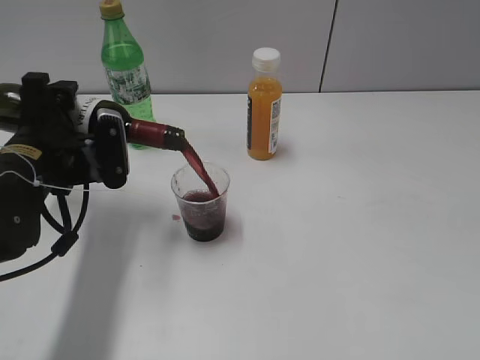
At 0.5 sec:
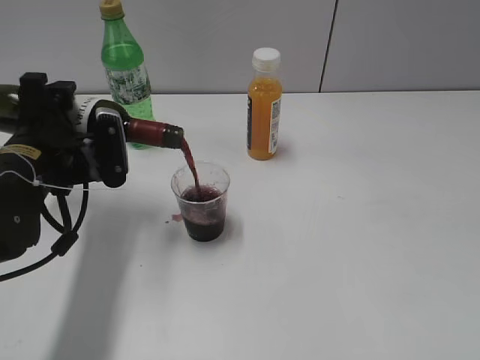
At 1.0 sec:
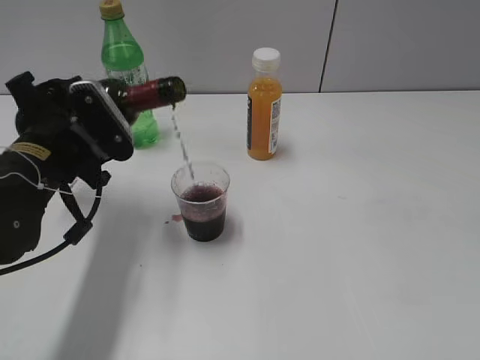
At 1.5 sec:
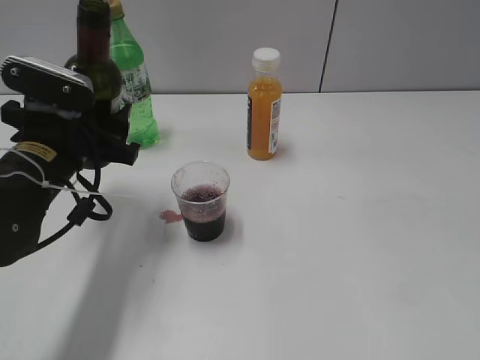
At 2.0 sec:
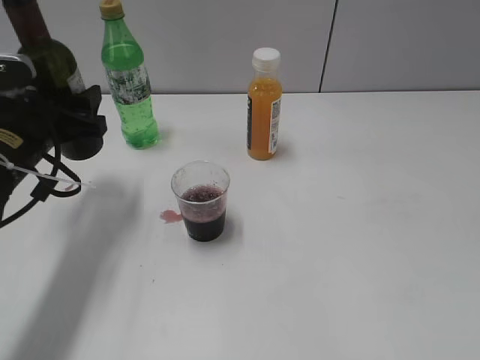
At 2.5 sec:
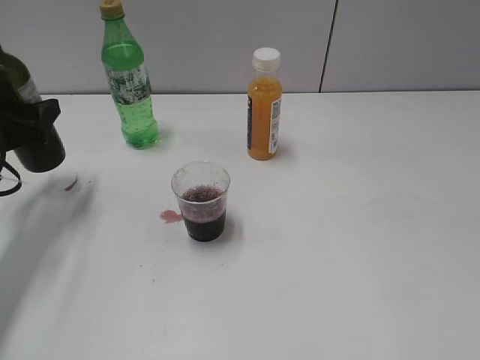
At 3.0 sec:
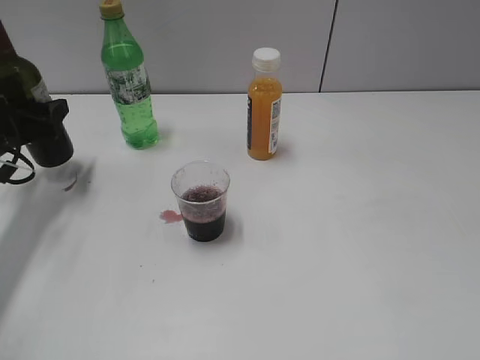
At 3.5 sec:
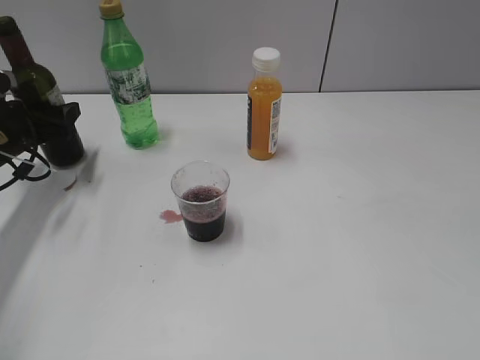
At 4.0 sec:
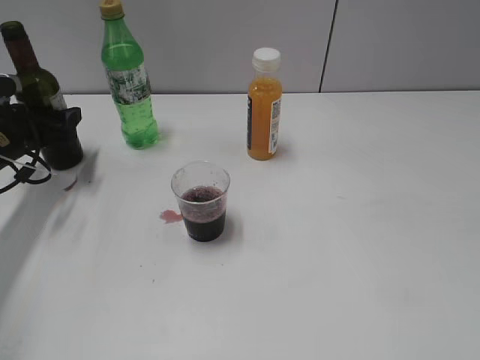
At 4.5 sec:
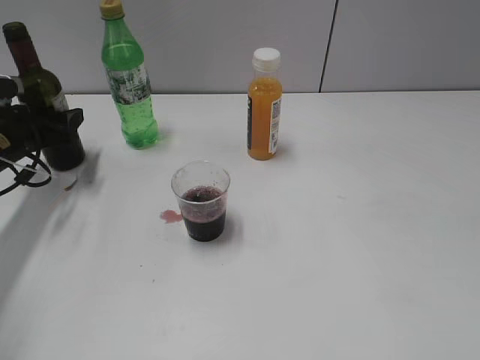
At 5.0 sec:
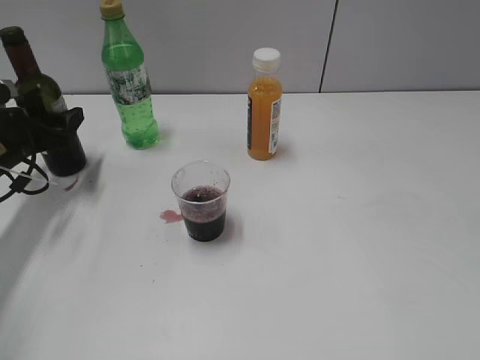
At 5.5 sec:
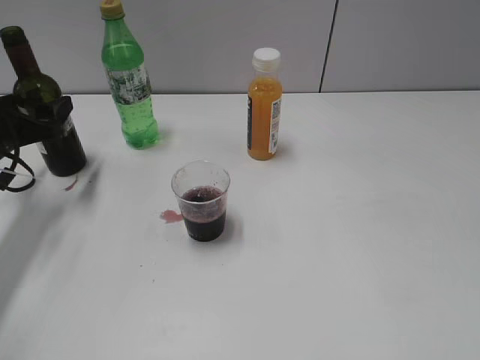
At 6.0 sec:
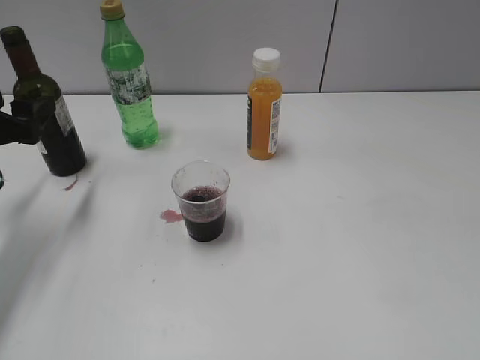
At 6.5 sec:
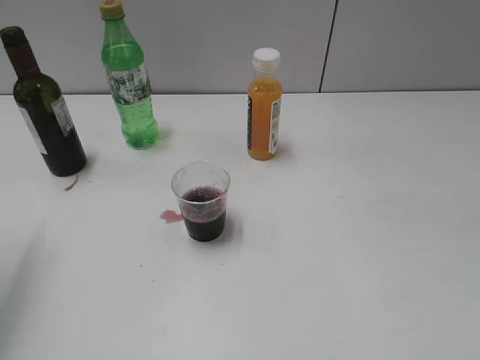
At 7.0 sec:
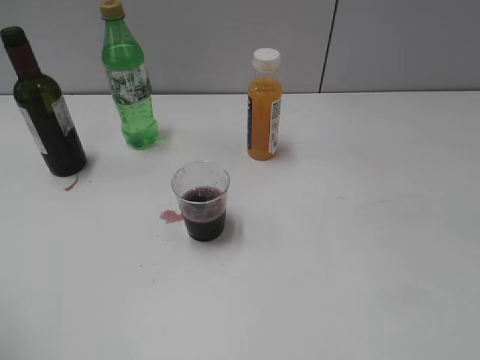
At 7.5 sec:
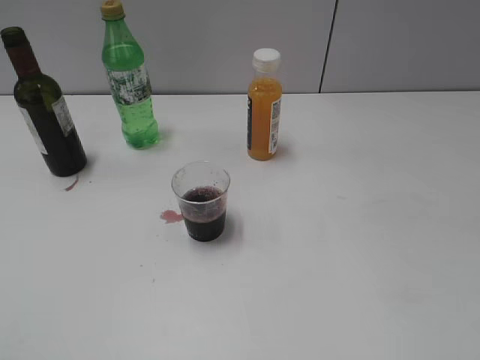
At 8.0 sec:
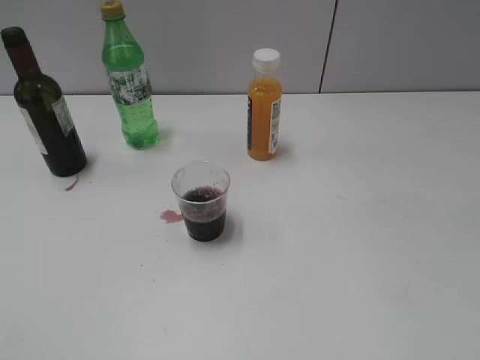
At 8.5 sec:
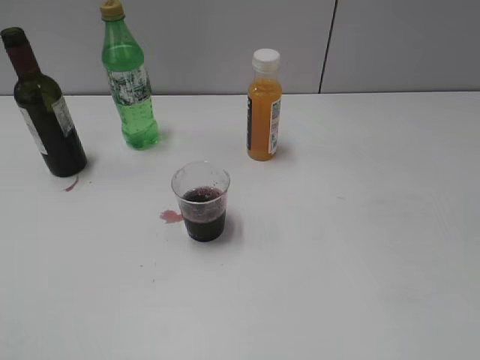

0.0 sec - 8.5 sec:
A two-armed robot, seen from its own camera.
Step, 1.5 sec - 5.5 sec: Place the red wine bottle on the table with left gripper.
2.0 sec - 4.0 sec: The left gripper heads forward, to the left and downward, covering approximately 15 cm.
4.0 sec - 6.5 sec: The left gripper is displaced backward and upward by roughly 25 cm.
6.5 sec - 8.5 sec: The left gripper heads backward, covering roughly 25 cm.

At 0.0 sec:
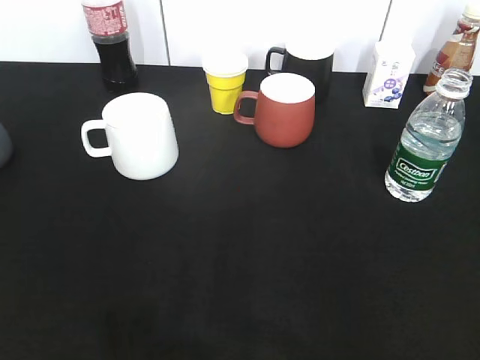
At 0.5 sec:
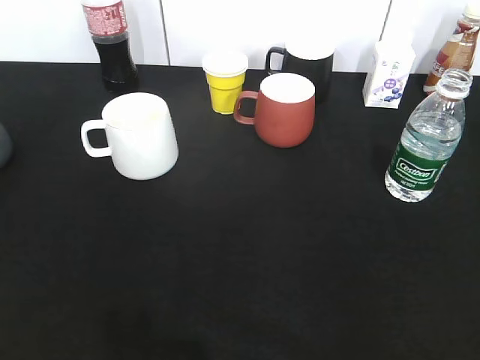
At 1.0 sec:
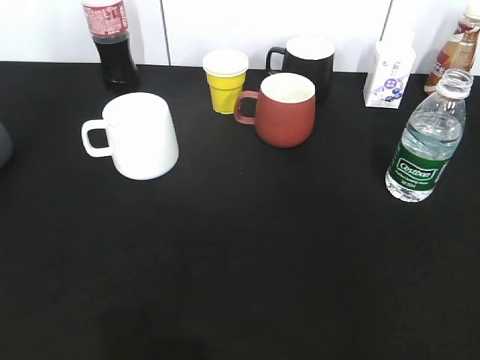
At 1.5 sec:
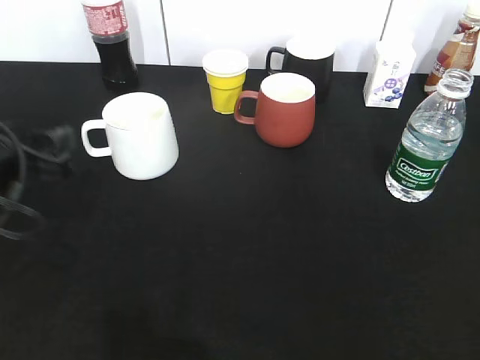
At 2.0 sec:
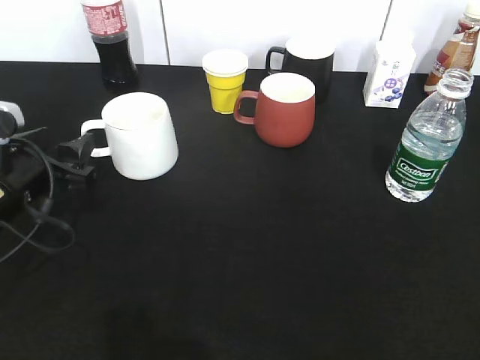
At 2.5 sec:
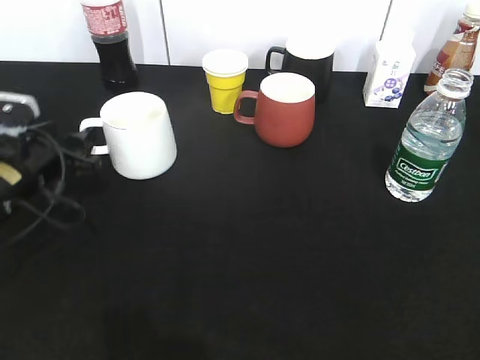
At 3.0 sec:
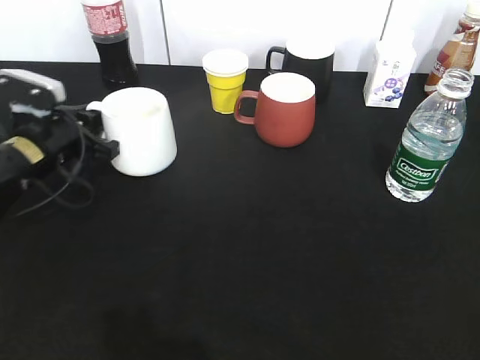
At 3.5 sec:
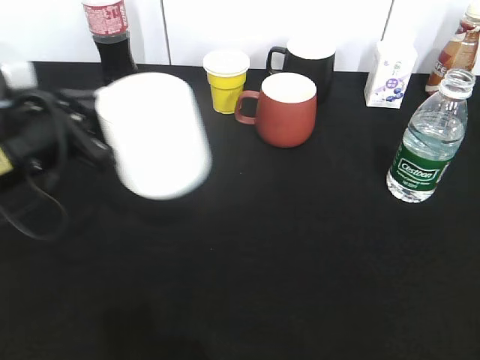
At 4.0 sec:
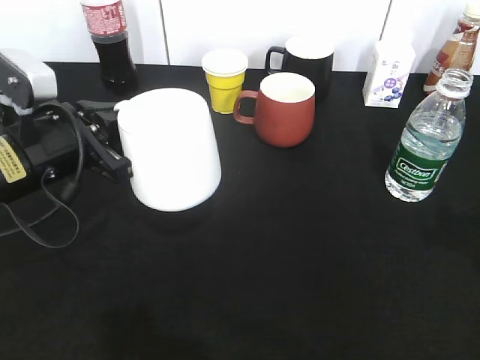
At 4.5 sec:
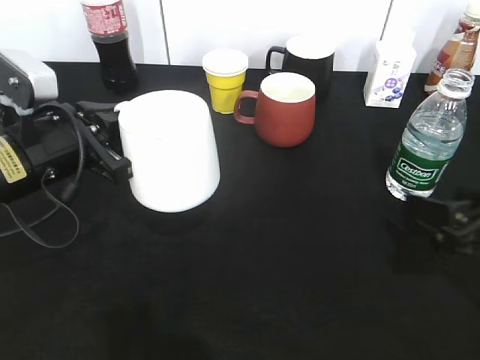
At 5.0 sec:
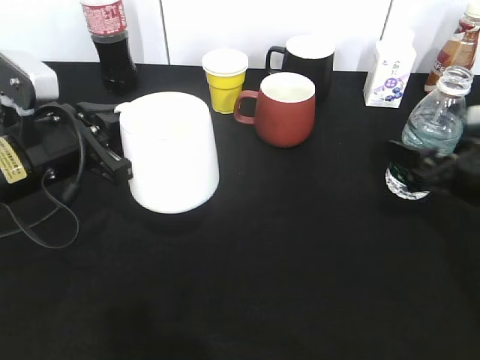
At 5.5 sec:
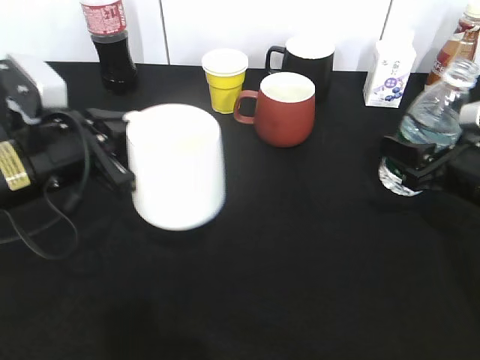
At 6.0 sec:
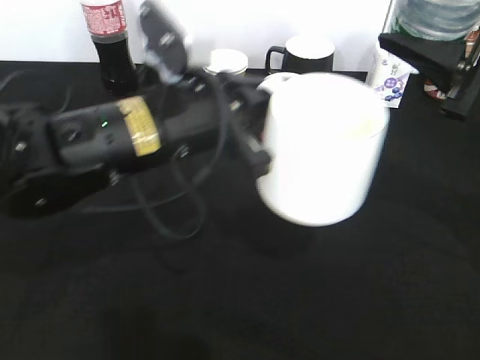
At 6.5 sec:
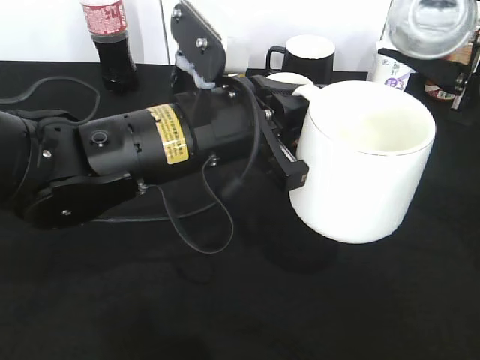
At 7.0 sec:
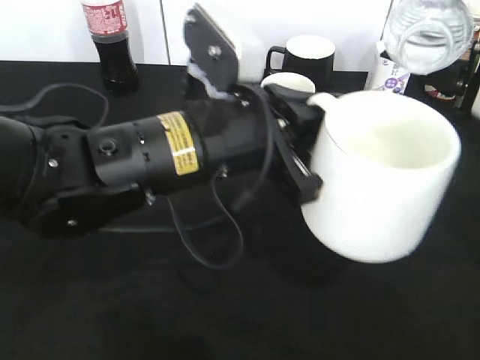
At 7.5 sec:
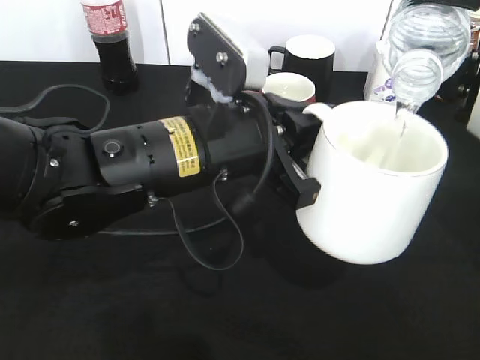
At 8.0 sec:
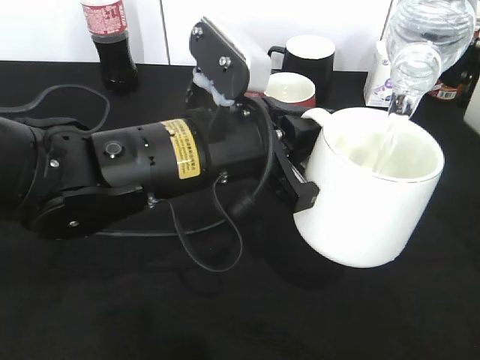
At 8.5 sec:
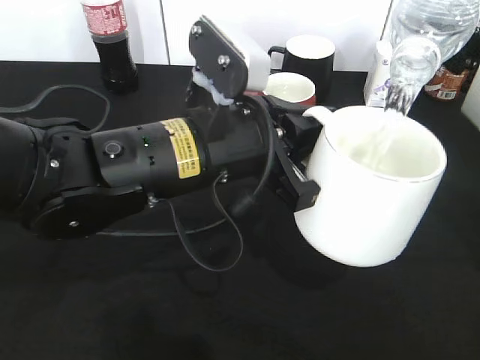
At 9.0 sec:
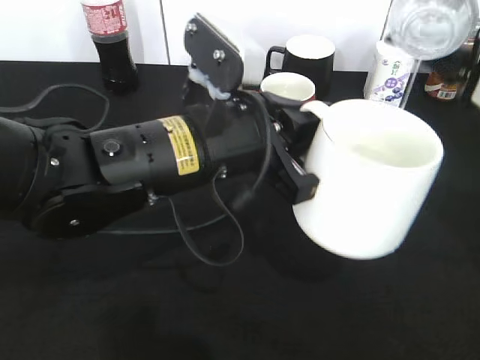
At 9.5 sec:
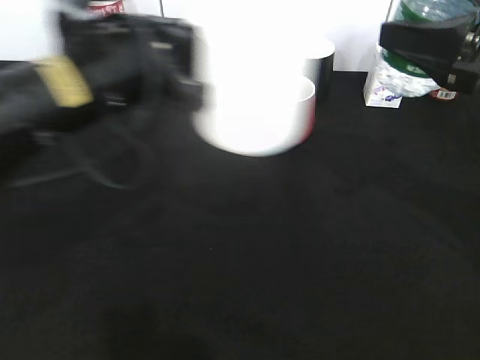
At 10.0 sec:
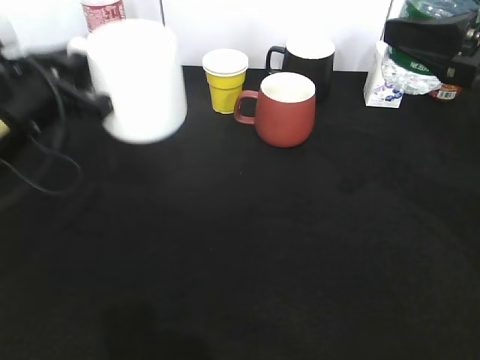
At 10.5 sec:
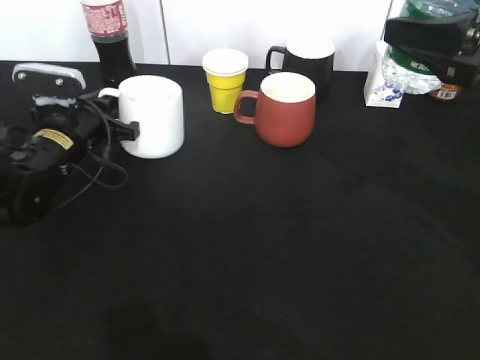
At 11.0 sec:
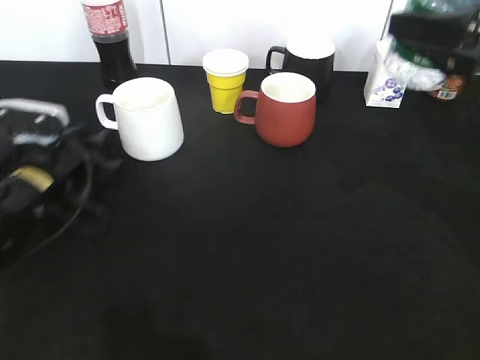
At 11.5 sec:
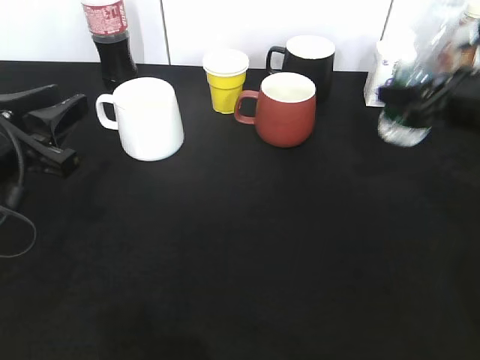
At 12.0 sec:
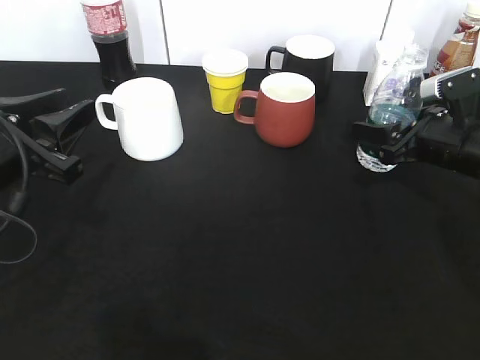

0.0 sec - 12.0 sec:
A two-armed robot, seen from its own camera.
Step, 1.0 sec - 2.5 sec: Grasp the white cup with left gripper.
Step, 3.0 sec - 3.5 sec: Lift the white cup with left gripper.
Step, 4.0 sec - 5.0 sec: Grasp the bottle with water with right gripper.
Step, 5.5 sec - 9.0 sec: Pour the water from bottle to cup with right gripper.
Step, 10.0 sec - 10.5 sec: Place the white cup on the table with left gripper.
0.0 sec - 2.0 sec: The left gripper heads forward and downward, covering some 30 cm.
2.0 sec - 4.0 sec: The left gripper reaches about 10 cm forward, then returns, and closes; the right gripper moves forward, roughly 15 cm.
4.0 sec - 6.0 sec: The right gripper travels forward and to the left by some 15 cm, moves about 10 cm downward and comes back, and opens, then closes again; the left gripper is displaced to the right by approximately 15 cm.
8.0 sec - 10.0 sec: The left gripper goes approximately 20 cm to the left.
10.0 sec - 12.0 sec: The right gripper is displaced downward and forward by approximately 15 cm, and opens up, while the left gripper travels backward by some 5 cm, and opens.

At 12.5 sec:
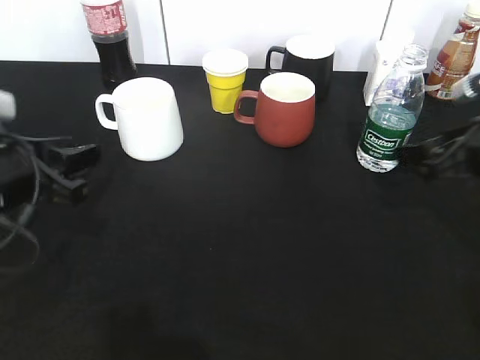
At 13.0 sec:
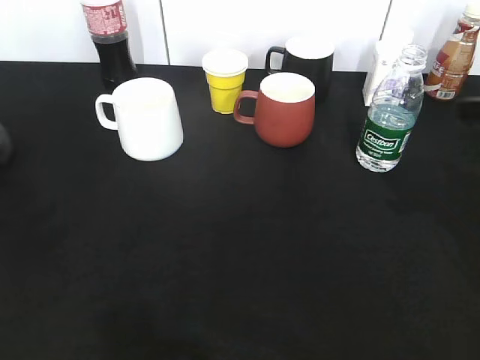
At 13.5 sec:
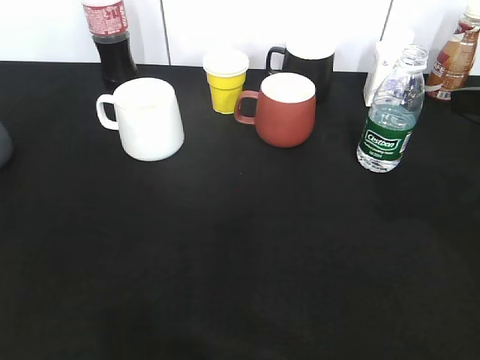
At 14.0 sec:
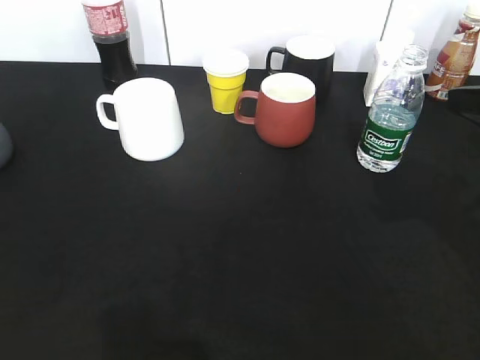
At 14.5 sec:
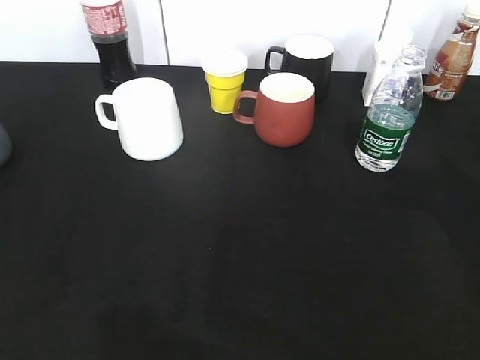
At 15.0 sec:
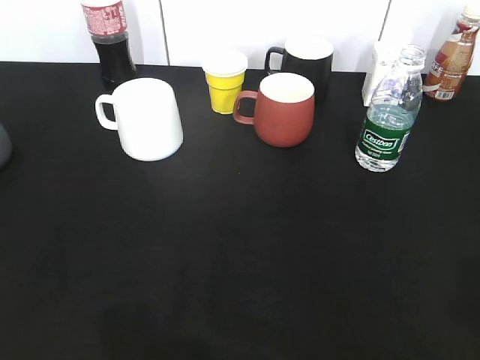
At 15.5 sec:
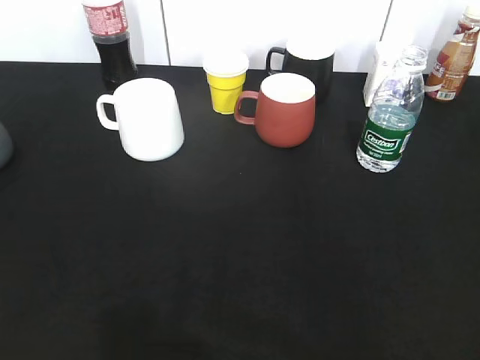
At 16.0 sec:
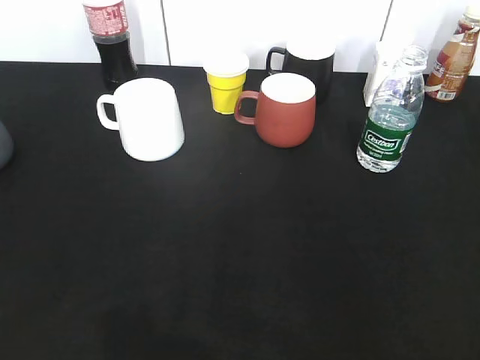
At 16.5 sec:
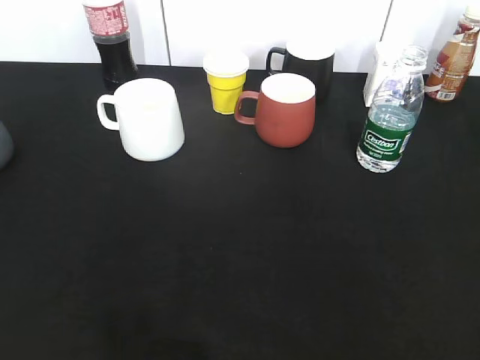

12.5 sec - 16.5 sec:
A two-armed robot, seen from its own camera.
12.5 sec - 14.5 sec: The left gripper goes some 25 cm backward, upward and to the left; the right gripper moves upward and backward, approximately 10 cm, and closes its fingers.
14.5 sec - 16.5 sec: The right gripper shifts roughly 20 cm backward.
